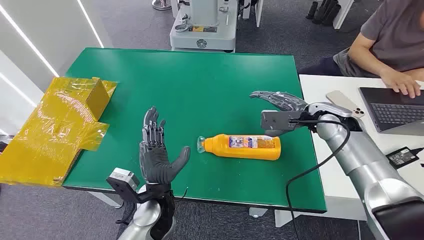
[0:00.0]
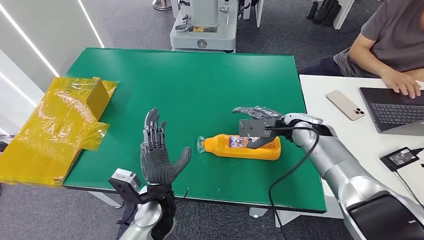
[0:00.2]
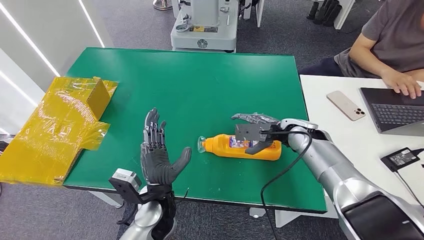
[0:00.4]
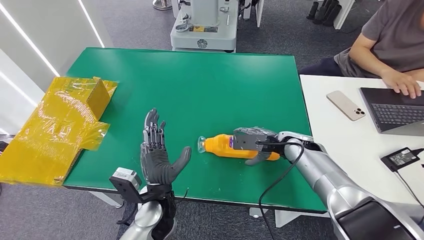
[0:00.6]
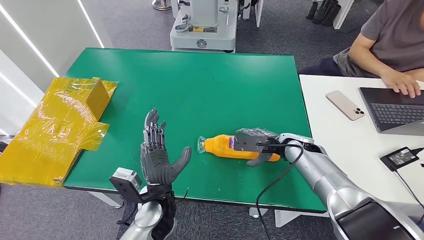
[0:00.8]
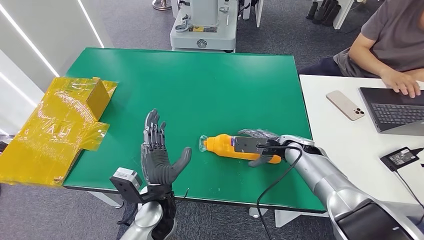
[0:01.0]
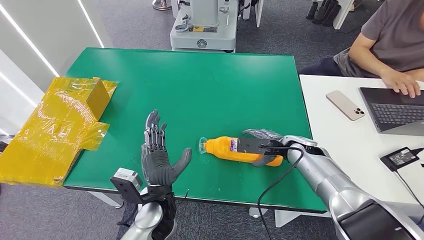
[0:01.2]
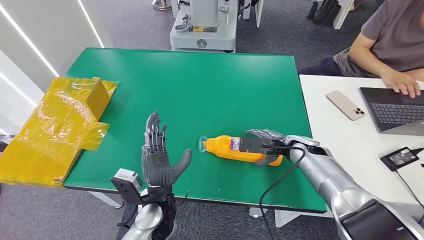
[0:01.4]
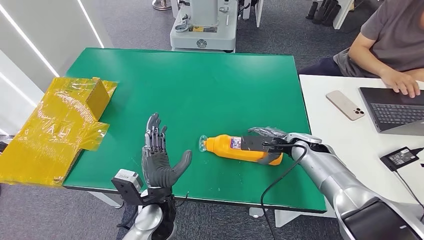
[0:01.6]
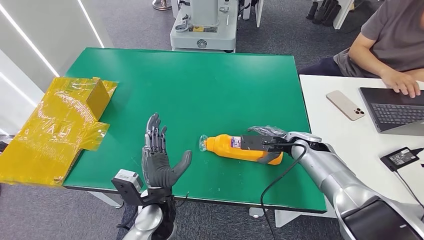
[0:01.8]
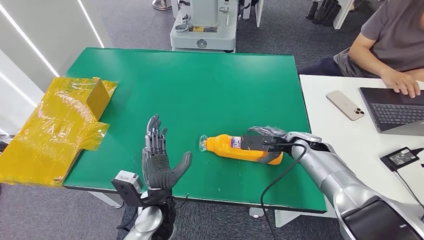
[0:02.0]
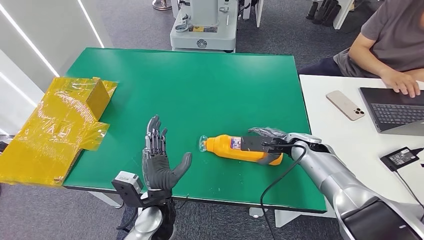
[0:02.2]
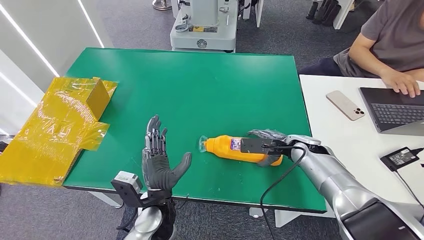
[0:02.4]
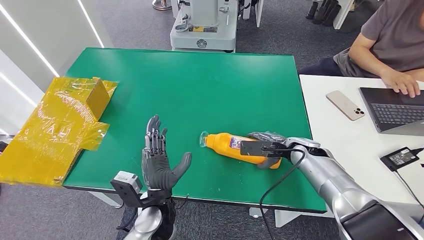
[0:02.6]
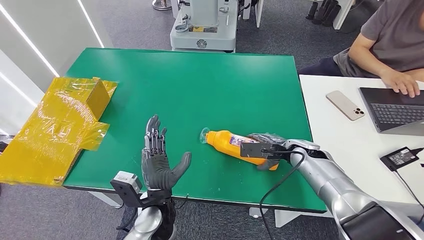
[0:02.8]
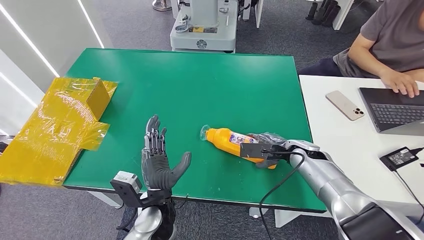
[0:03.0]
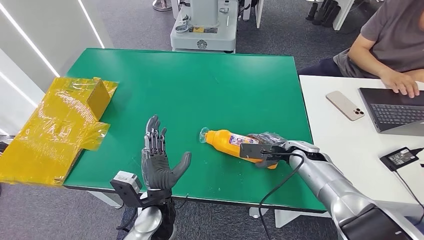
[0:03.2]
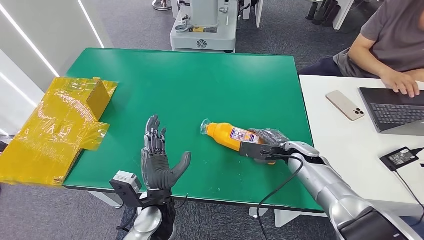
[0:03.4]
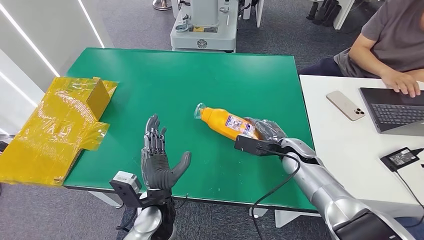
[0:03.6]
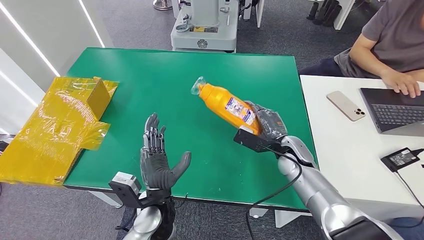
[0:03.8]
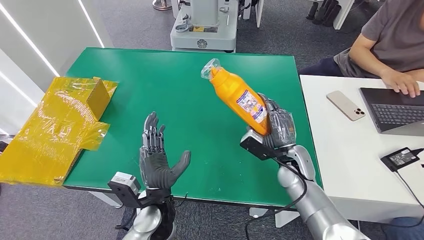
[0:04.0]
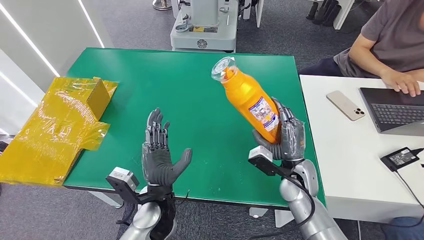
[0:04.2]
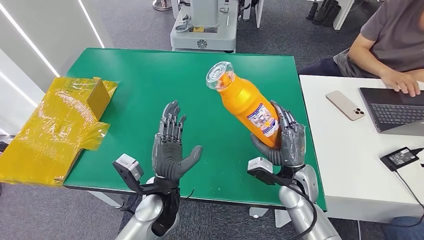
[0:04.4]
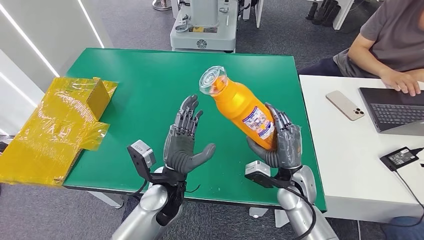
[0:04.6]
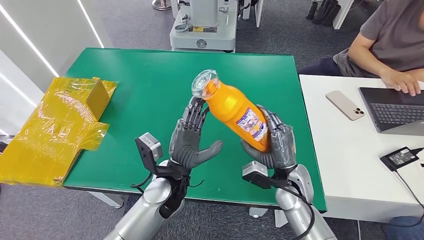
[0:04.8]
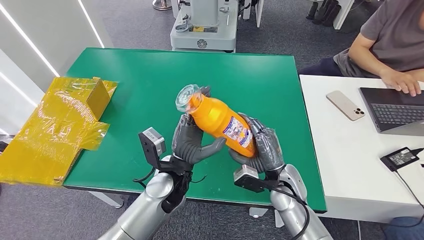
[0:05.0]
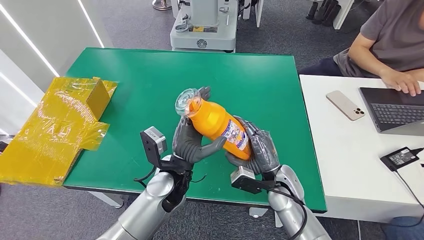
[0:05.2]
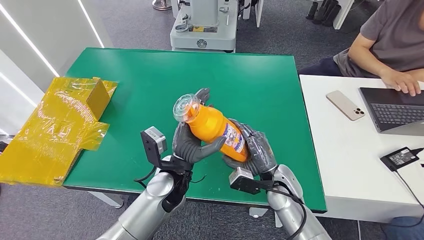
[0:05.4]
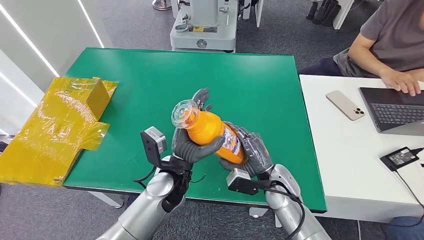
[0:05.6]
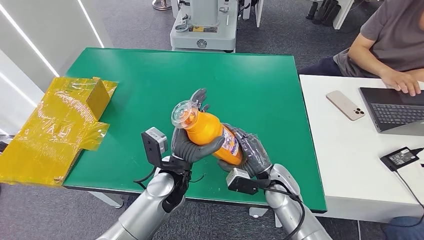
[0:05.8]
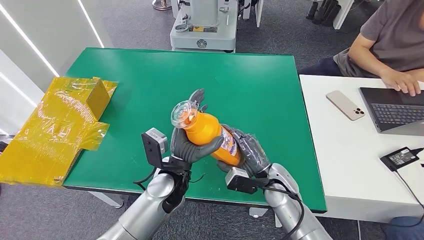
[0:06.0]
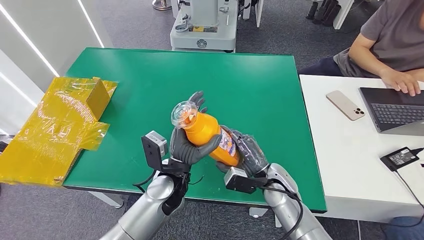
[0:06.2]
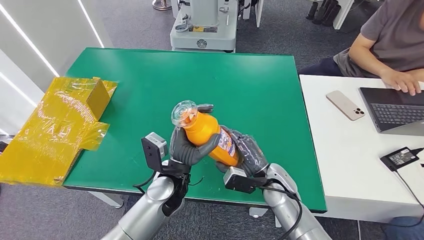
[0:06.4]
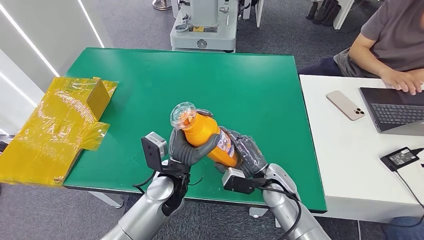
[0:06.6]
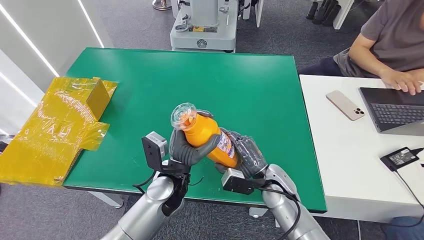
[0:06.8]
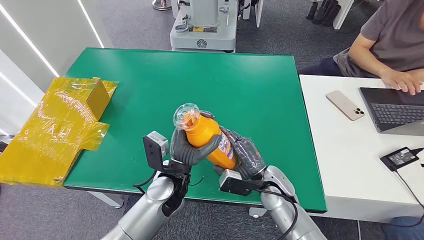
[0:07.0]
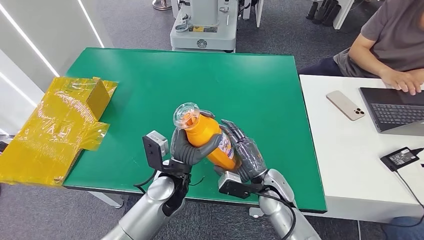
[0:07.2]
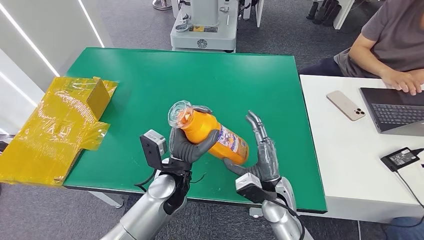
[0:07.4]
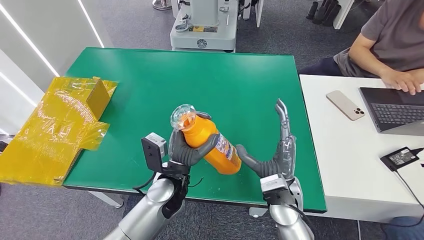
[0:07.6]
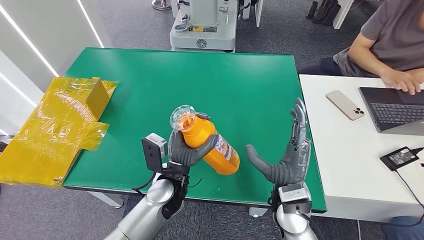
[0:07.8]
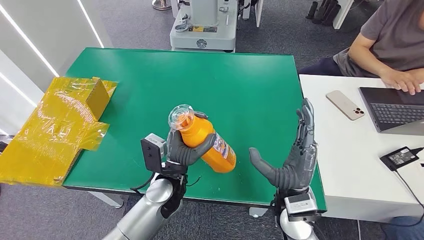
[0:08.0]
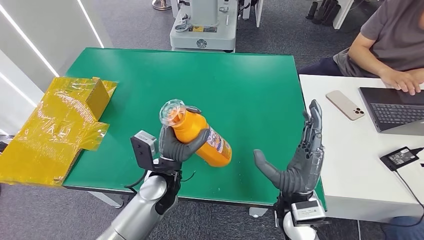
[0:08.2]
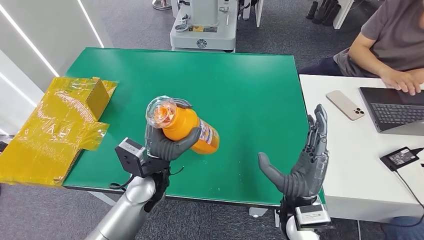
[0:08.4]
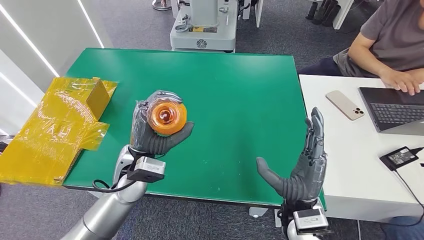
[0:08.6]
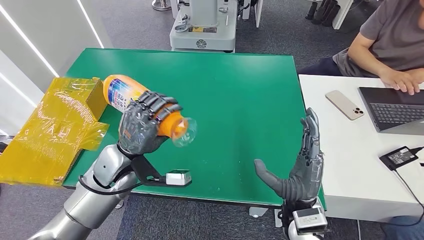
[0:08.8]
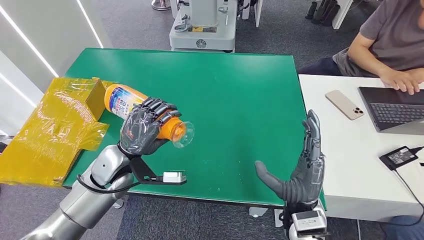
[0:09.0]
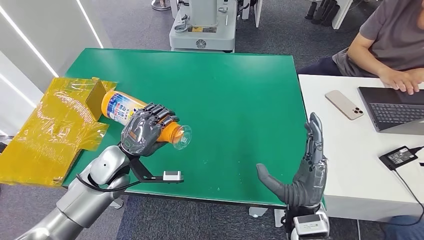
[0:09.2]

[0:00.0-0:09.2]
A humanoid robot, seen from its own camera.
Step, 0:00.0 to 0:04.6: Pick up the bottle from the table.
Step, 0:04.8 to 0:09.2: Turn the bottle to the front side.
0:01.6 to 0:03.0: The hands move only a little.
0:03.0 to 0:04.6: The right hand shifts some 15 cm backward and to the left; the left hand moves roughly 5 cm.
0:06.2 to 0:07.6: The right hand shifts by roughly 5 cm.

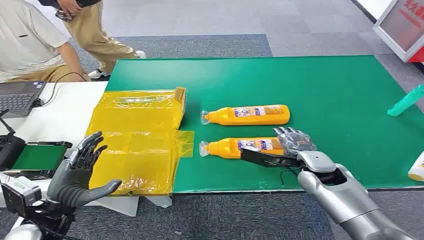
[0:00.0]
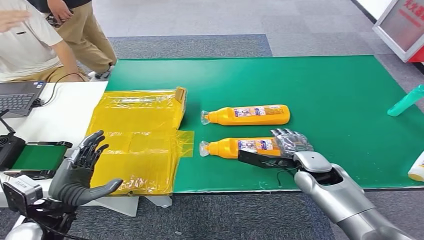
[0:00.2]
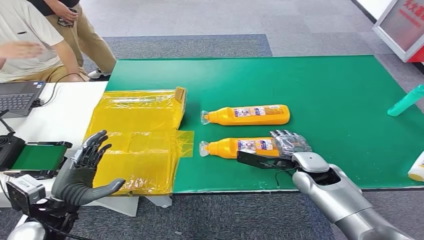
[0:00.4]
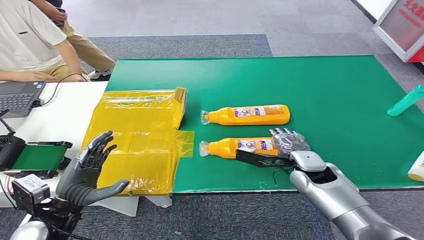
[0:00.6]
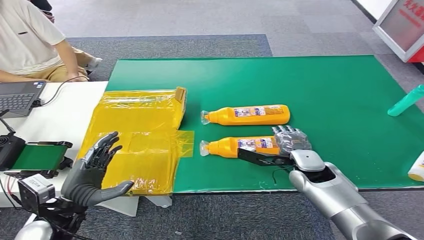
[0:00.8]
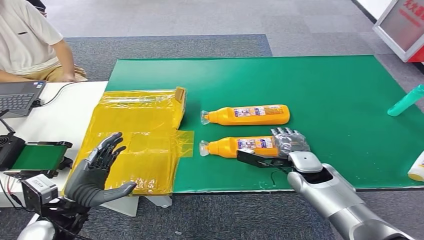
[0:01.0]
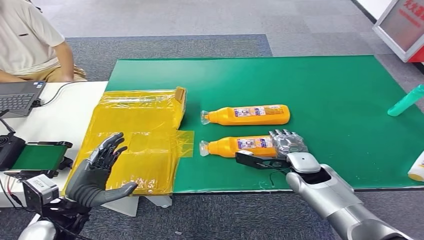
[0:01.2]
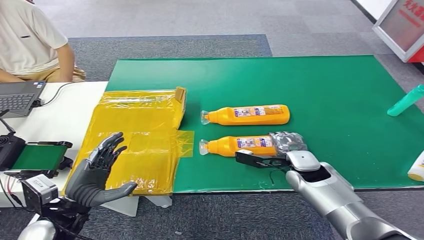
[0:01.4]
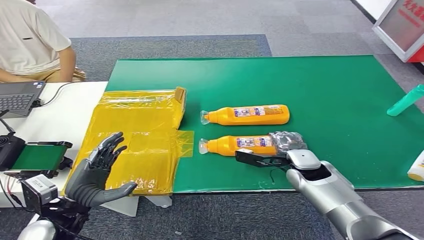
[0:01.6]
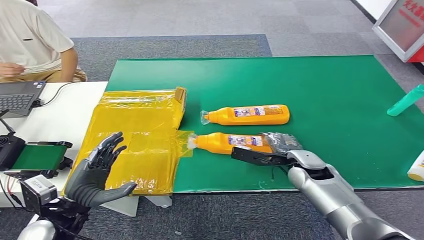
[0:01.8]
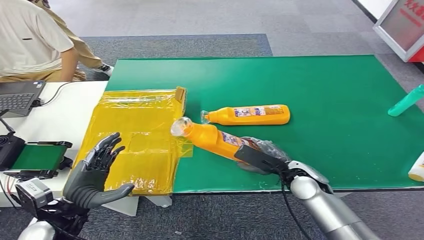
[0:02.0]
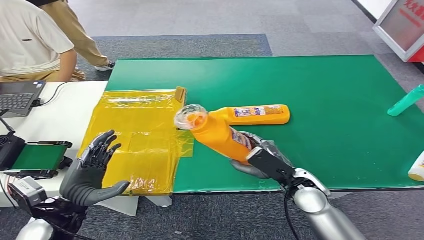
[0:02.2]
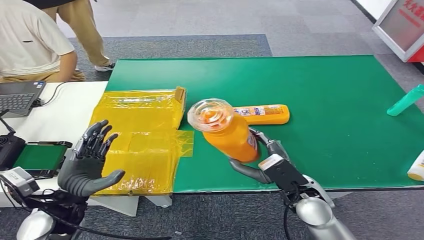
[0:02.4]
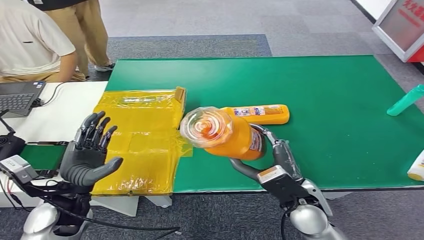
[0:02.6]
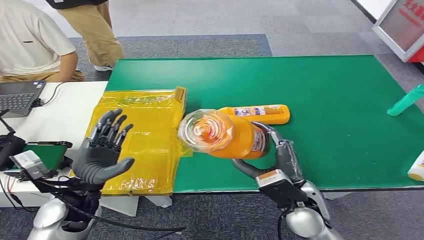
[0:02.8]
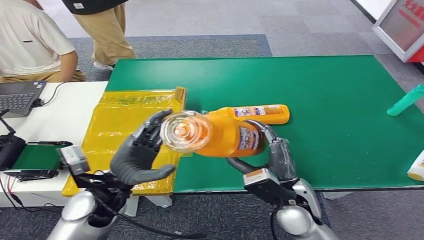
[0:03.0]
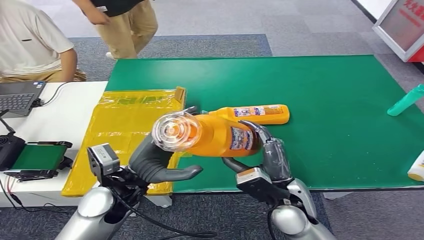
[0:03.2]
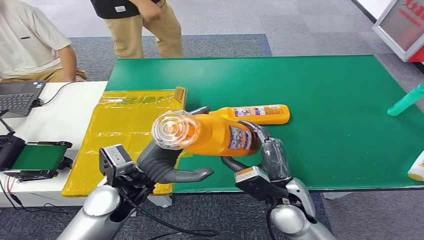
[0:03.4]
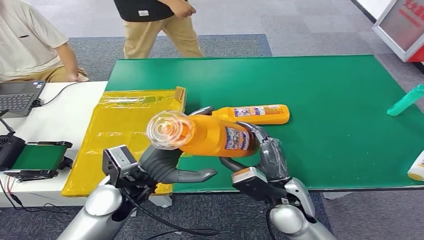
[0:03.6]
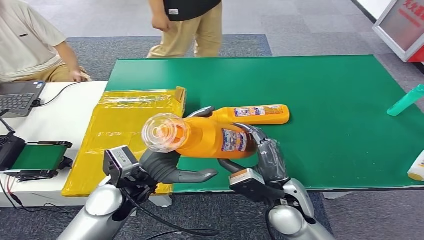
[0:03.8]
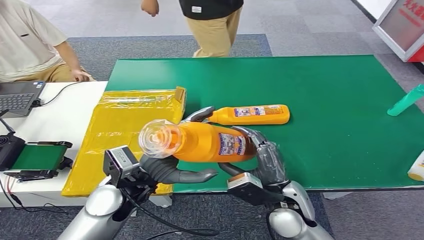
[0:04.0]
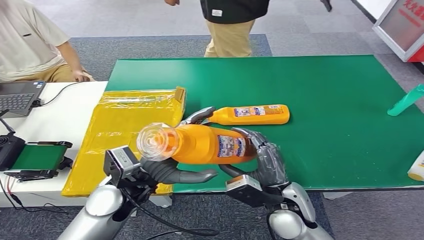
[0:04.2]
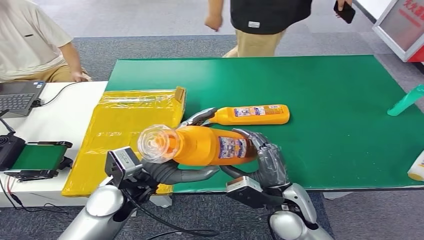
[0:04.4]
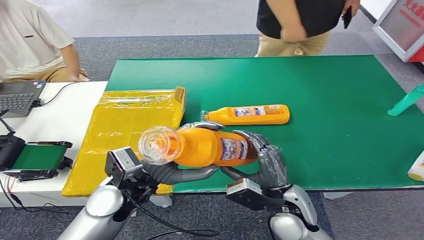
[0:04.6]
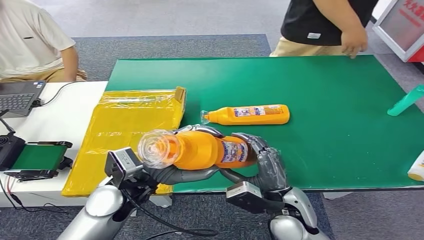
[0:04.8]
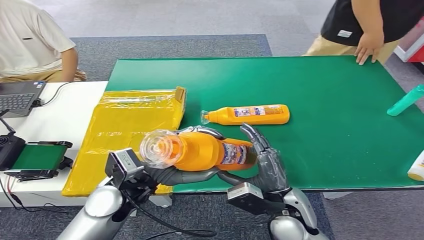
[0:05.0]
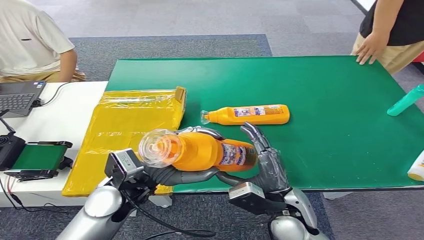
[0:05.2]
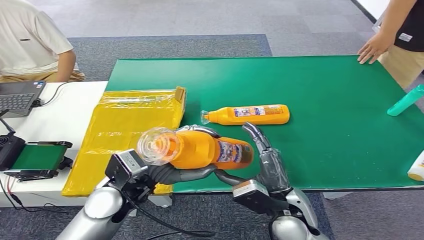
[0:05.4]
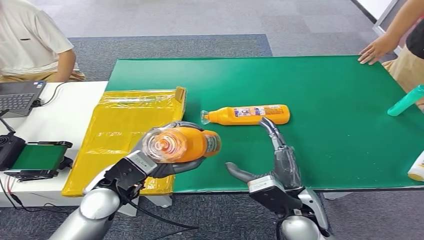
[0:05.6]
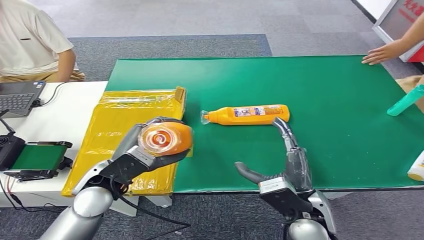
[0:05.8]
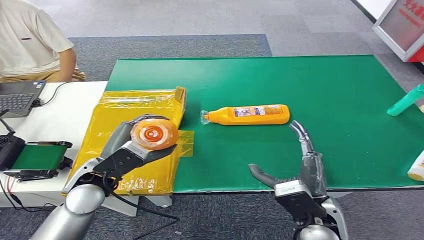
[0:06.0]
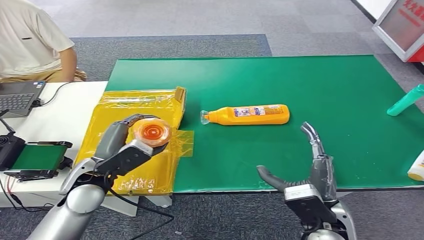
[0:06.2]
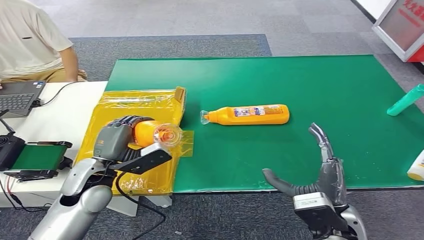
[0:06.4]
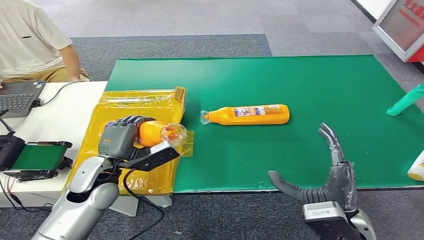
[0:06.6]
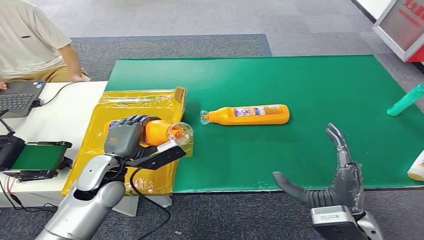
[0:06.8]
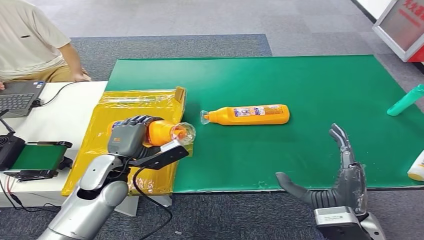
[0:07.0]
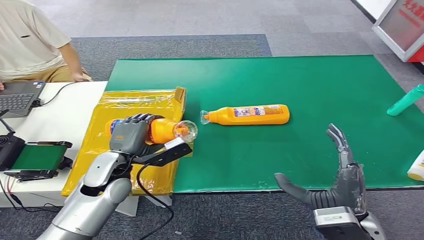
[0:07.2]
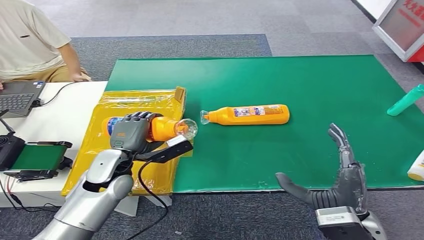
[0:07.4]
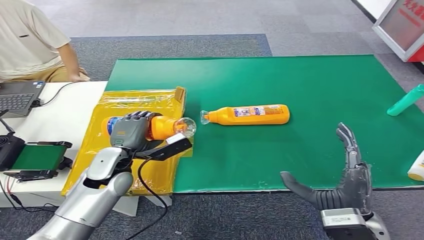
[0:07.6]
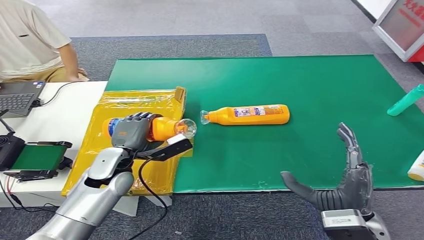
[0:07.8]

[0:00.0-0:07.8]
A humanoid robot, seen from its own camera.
Step, 0:00.0 to 0:05.2: Pick up the bottle from the table.
Step, 0:05.4 to 0:07.8: Turn the bottle to the front side.
0:06.2 to 0:07.8: The left hand moves forward, about 5 cm.
